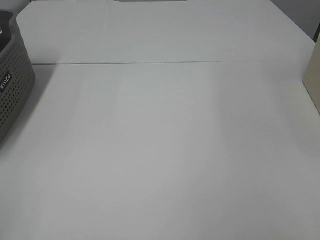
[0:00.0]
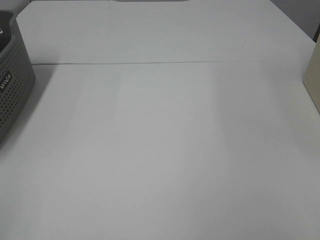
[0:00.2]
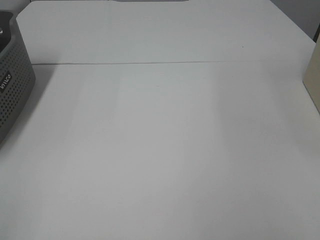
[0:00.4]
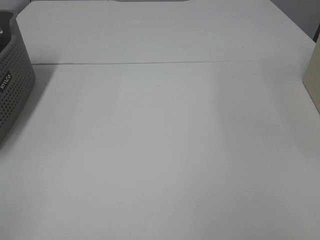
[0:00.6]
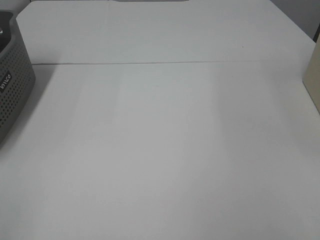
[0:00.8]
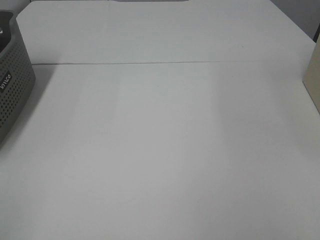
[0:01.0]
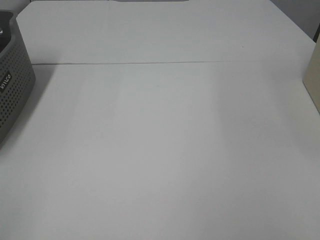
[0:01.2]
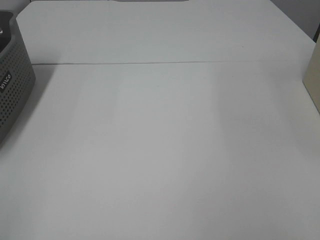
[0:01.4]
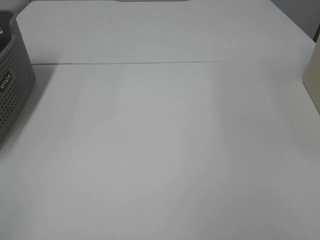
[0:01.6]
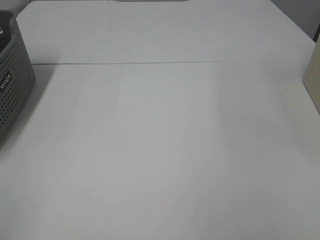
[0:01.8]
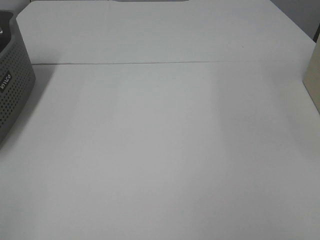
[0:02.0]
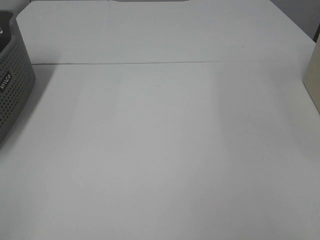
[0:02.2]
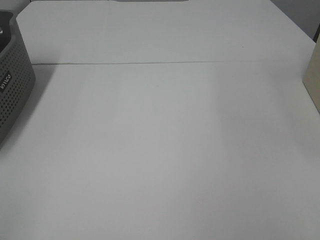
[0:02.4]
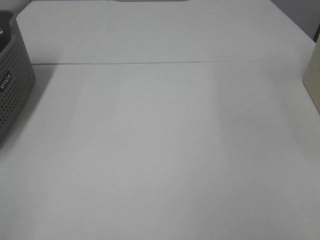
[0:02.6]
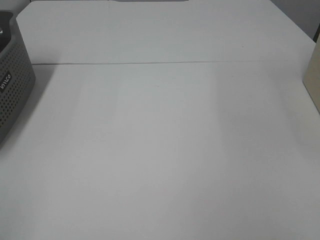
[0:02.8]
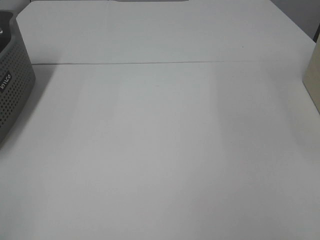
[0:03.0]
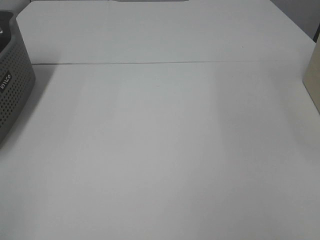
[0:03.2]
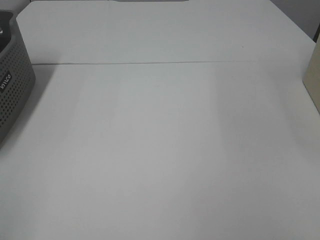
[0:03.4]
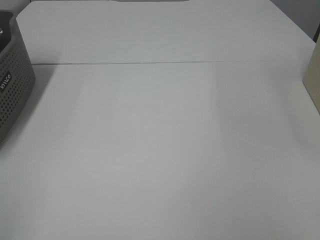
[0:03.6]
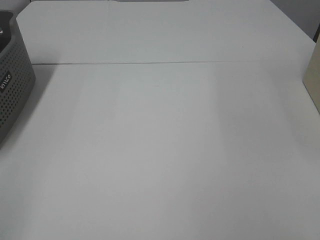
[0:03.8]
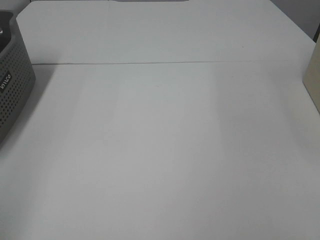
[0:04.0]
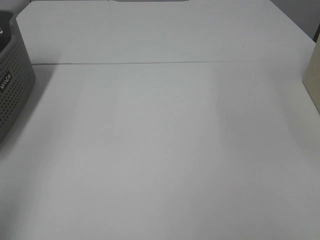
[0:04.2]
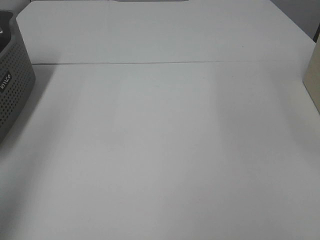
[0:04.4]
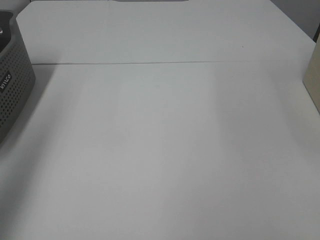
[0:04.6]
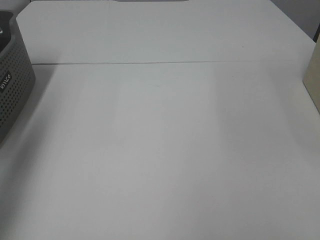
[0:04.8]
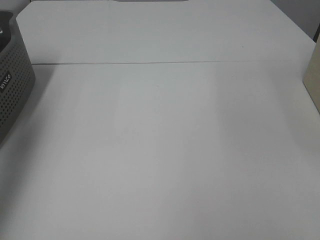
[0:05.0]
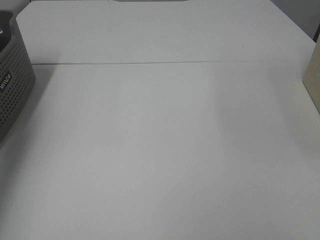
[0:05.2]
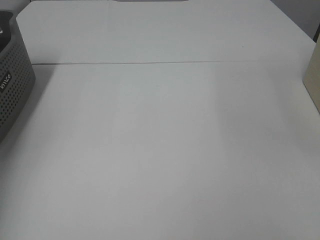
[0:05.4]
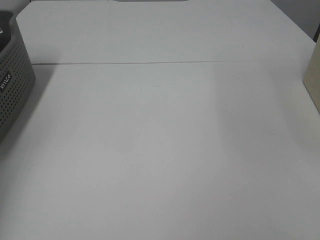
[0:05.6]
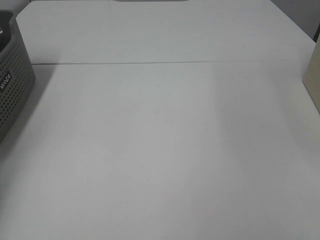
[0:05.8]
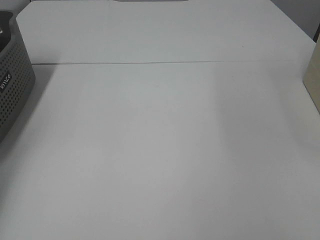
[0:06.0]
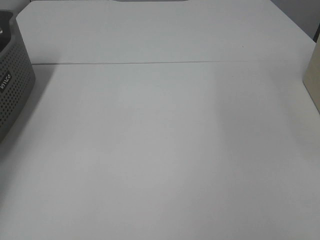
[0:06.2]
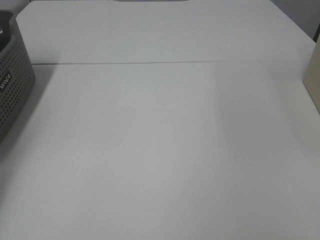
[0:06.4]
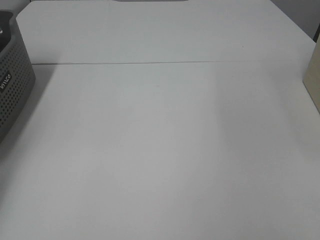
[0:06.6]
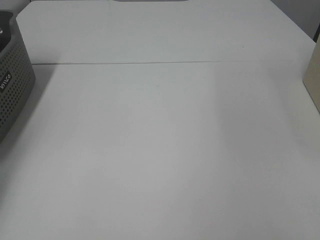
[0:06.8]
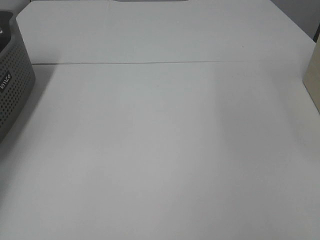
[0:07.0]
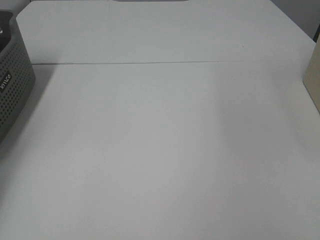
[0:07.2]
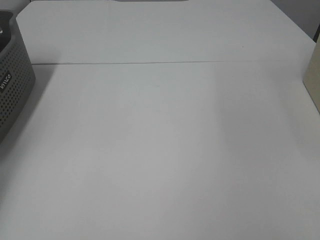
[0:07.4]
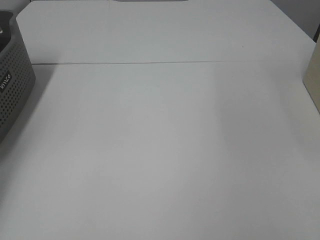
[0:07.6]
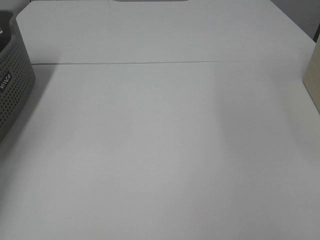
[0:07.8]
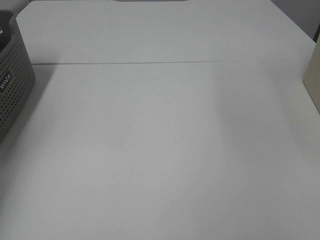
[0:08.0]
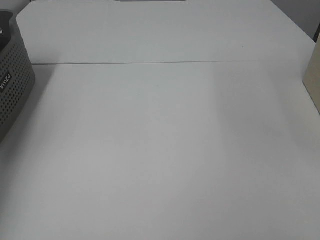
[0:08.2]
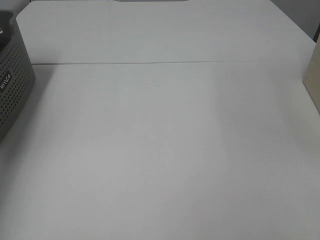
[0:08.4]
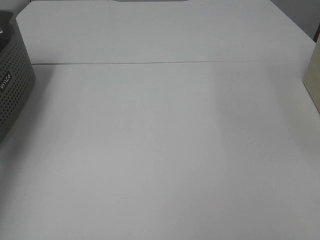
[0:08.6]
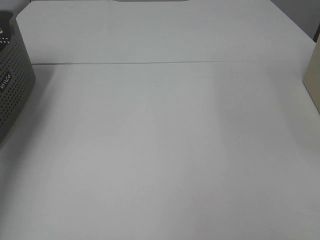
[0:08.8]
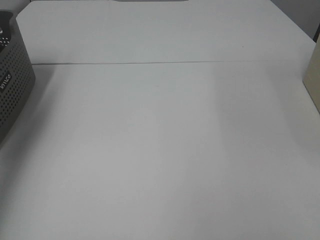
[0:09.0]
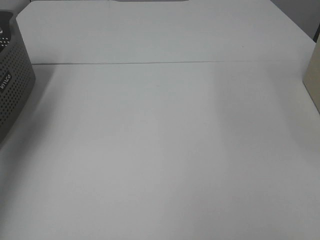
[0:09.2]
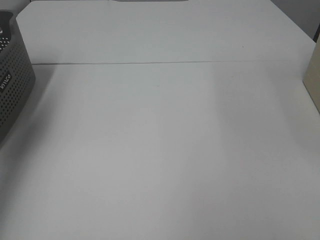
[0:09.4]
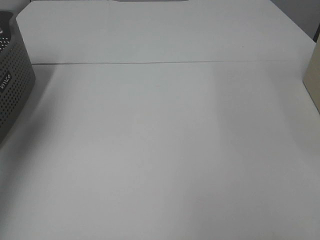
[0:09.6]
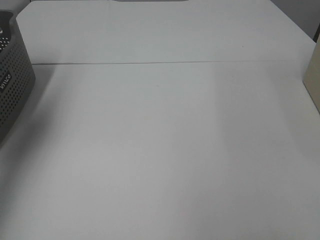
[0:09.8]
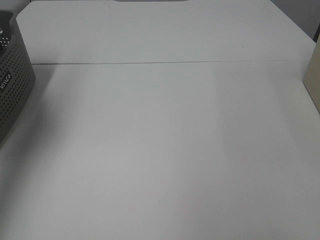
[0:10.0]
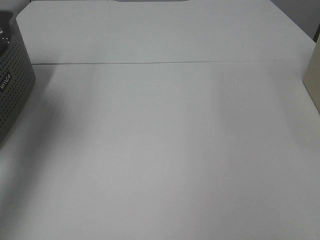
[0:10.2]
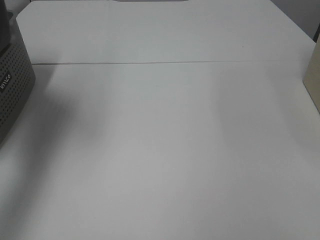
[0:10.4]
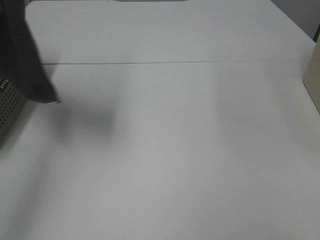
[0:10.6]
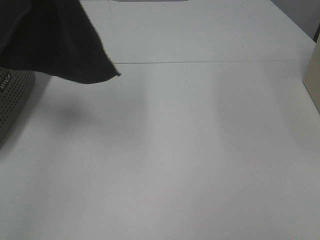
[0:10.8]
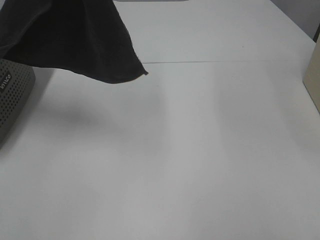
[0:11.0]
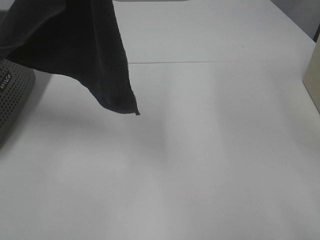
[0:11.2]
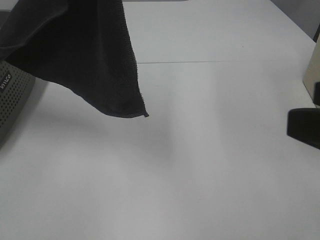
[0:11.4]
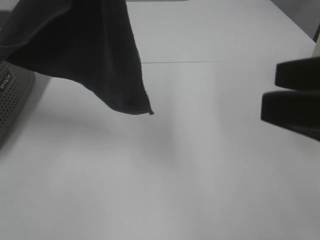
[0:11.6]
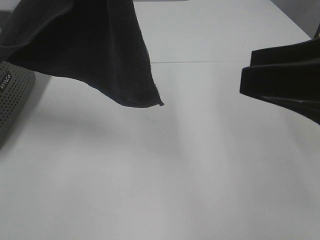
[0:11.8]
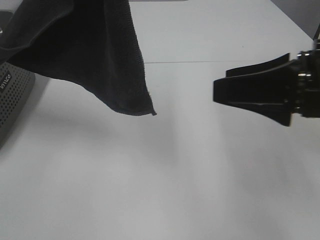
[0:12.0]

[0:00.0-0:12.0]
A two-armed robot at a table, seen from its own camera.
Task of the whole recording: Remove the towel and place it.
0:00.0 to 0:03.0: Both grippers stay put.
0:03.0 to 0:04.4: The left gripper heads forward and upward, covering approximately 15 cm.
0:04.4 to 0:06.0: The left gripper is displaced forward, downward and to the left by approximately 35 cm.
0:07.6 to 0:09.0: The left gripper moves upward and backward, about 25 cm.
0:09.0 to 0:10.4: The left gripper heads to the right and upward, covering approximately 15 cm.
0:10.4 to 0:12.0: The right gripper moves forward, approximately 20 cm. The left gripper heads to the right, covering some 15 cm.

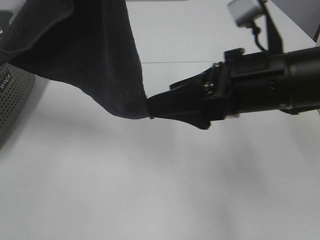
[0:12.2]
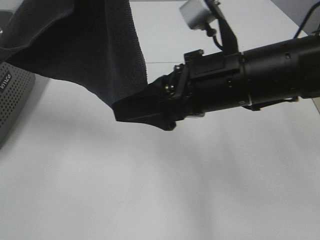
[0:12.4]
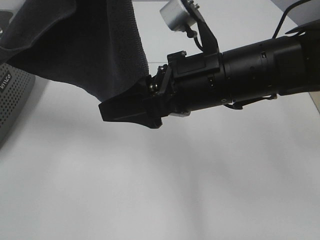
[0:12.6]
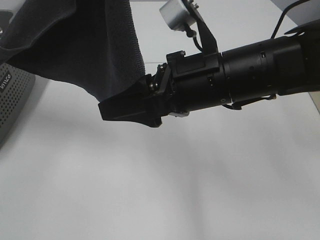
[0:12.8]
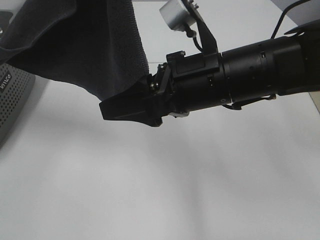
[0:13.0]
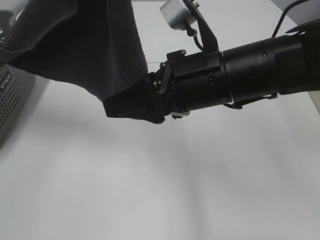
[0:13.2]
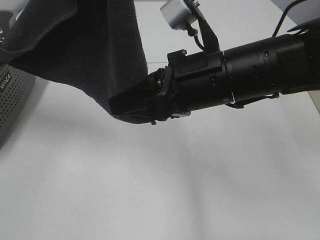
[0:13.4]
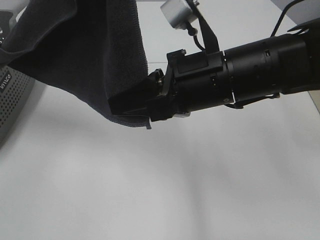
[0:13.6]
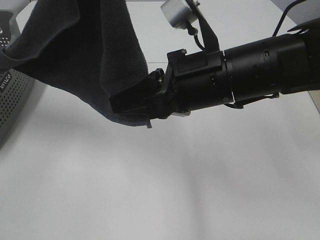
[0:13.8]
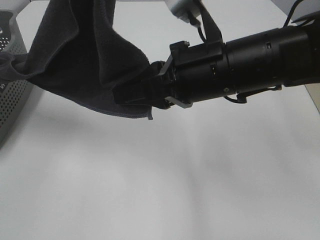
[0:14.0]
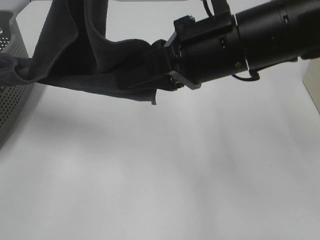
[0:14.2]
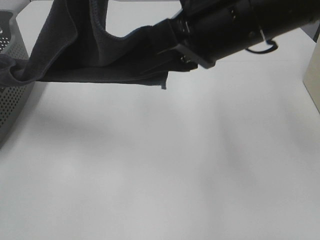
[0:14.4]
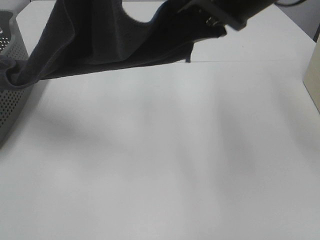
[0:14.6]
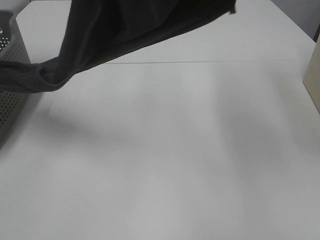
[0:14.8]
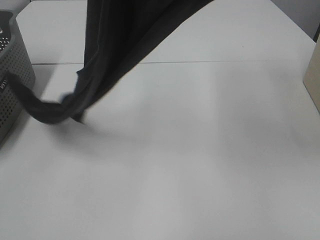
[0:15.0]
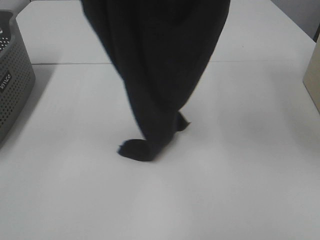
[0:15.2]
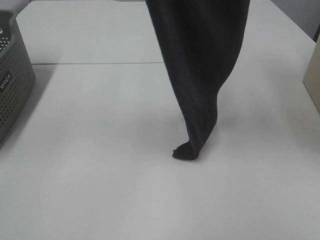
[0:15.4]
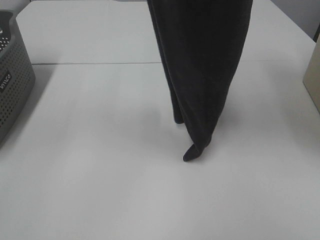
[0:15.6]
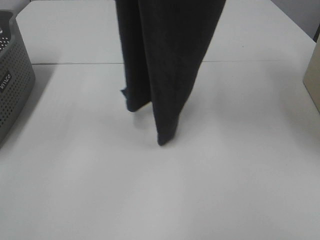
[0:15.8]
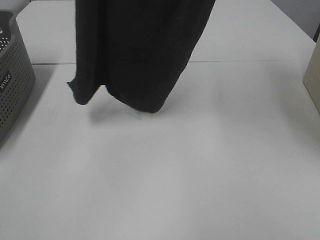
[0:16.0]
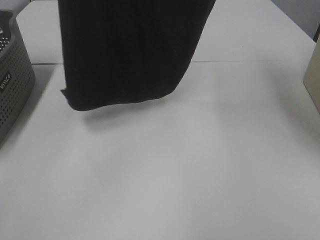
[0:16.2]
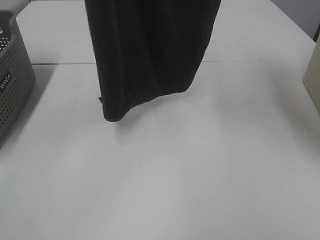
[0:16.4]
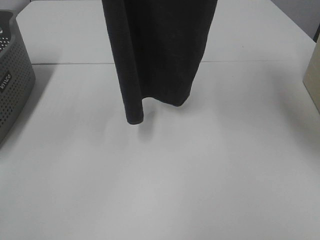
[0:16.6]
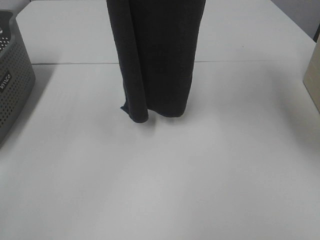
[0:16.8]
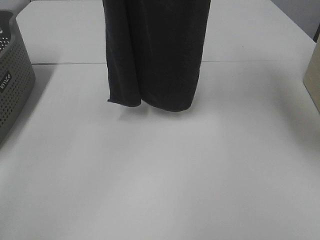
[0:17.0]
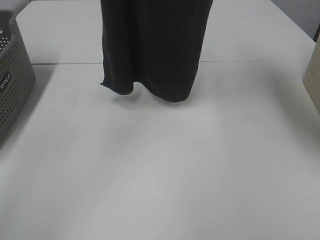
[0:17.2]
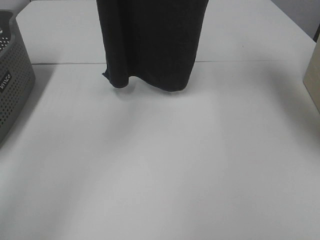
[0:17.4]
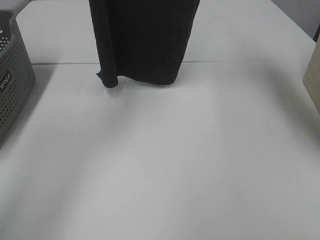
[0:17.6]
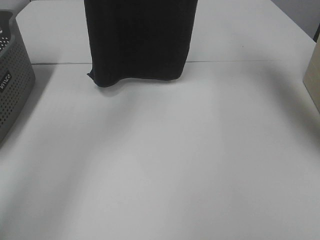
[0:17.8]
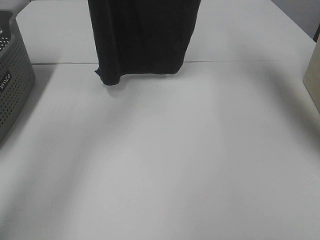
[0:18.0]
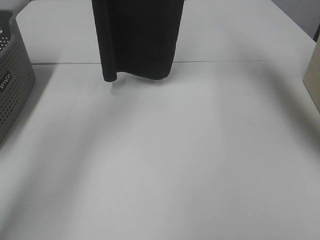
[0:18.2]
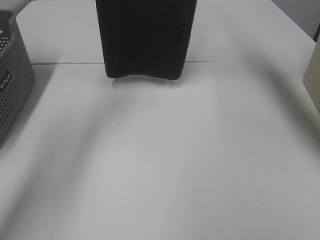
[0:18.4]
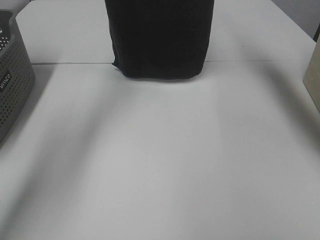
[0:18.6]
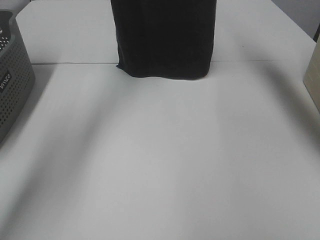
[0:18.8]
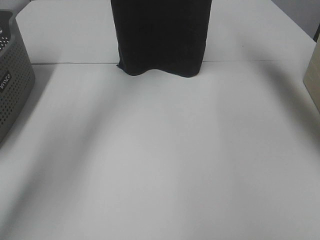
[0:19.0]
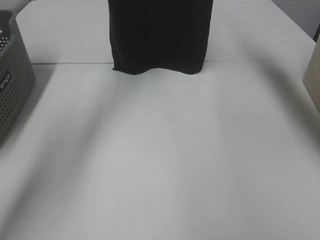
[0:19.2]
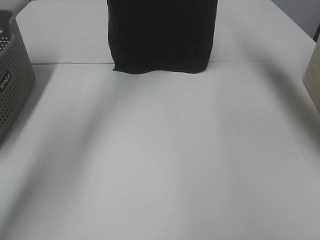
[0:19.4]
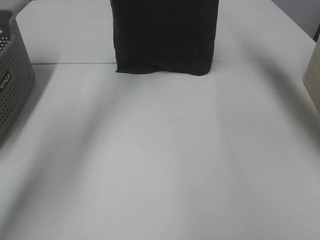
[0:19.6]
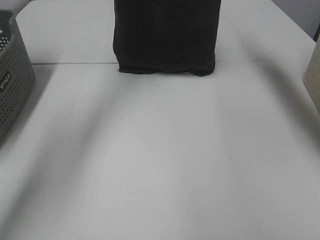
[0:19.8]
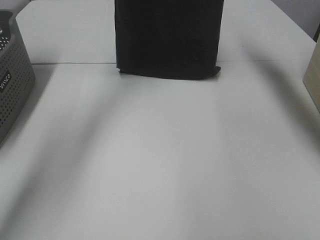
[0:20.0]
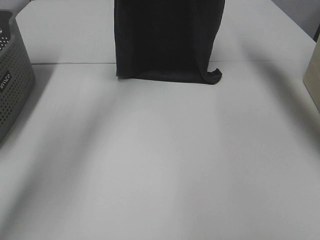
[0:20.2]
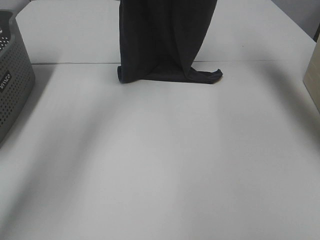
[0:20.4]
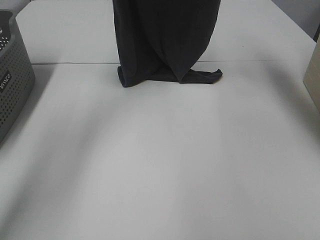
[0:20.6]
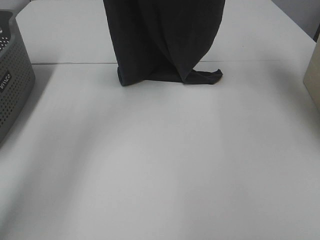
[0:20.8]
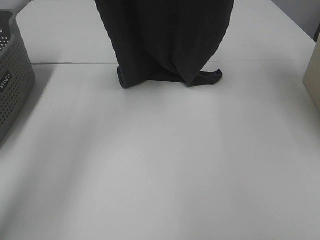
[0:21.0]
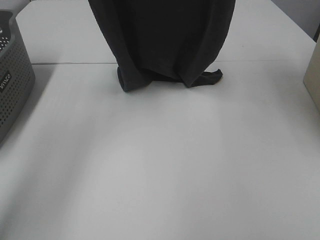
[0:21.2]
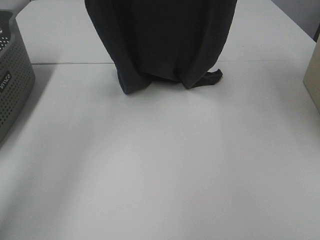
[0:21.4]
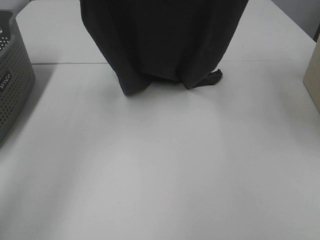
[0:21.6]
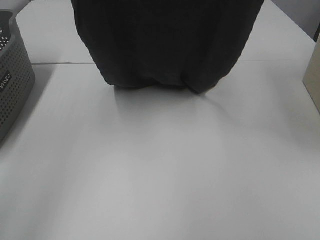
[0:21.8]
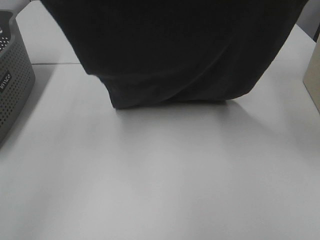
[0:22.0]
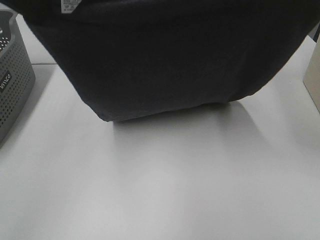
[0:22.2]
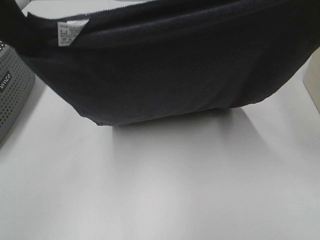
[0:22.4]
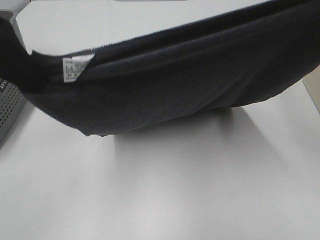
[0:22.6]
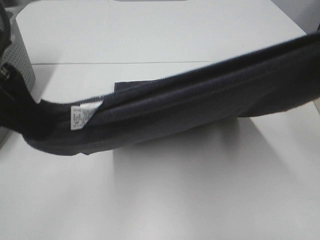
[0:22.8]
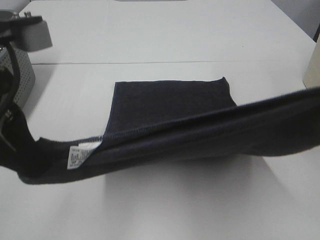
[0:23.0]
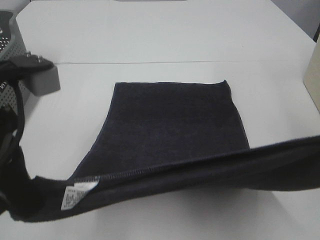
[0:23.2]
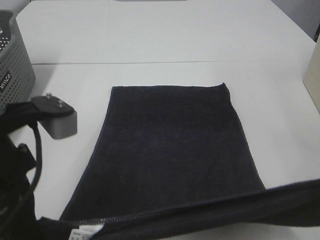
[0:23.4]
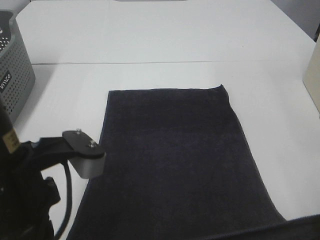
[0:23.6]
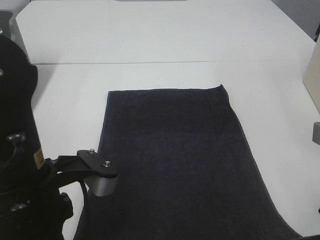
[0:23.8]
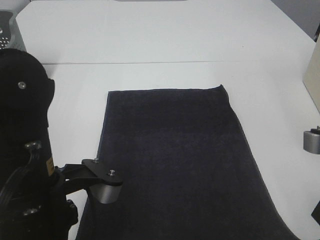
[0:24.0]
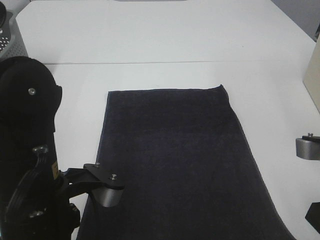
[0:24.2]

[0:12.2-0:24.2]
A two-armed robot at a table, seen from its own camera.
Task of the whole recording: Remove the towel and place it.
Step, 0:12.2 to 0:14.4: Right hand: grab a corner of the grey towel and straighten it.
Step, 0:14.6 to 0:20.8: Left hand: spread the grey towel flat on the table.
Step, 0:14.6 to 0:20.8: Right hand: spread the grey towel flat on the table.
0:12.2 to 0:13.8: The right gripper travels to the left by some 5 cm, and closes.
0:13.8 to 0:15.2: The right gripper shifts approximately 25 cm upward.
0:15.2 to 0:16.6: The two grippers go some 5 cm forward.
0:16.6 to 0:18.2: The right gripper shifts roughly 15 cm forward, while the left gripper goes approximately 20 cm forward and downward.
0:18.2 to 0:19.8: The right gripper changes place by about 5 cm. Meanwhile the left gripper heads downward, covering some 5 cm.
0:19.8 to 0:21.2: The two grippers go approximately 10 cm backward.
0:21.2 to 0:22.6: The two grippers go approximately 20 cm backward.
0:22.6 to 0:24.2: The left gripper goes approximately 20 cm downward and to the right, while the right gripper is displaced downward by some 20 cm.
